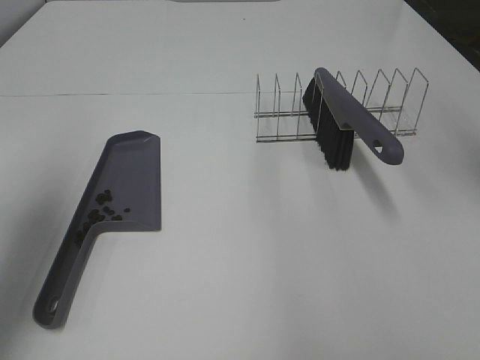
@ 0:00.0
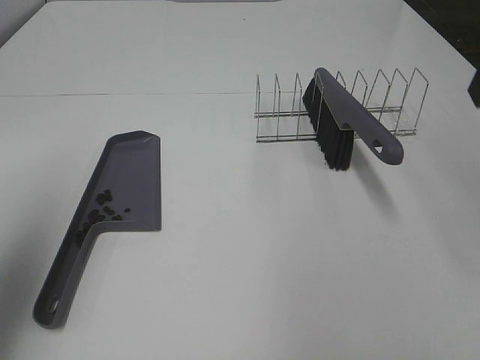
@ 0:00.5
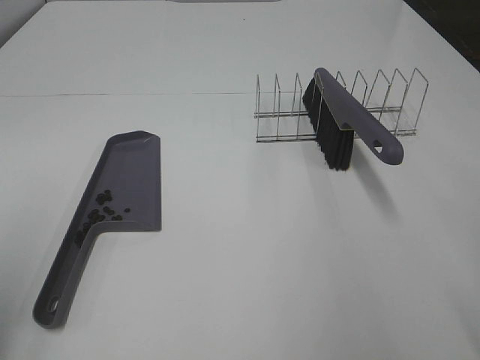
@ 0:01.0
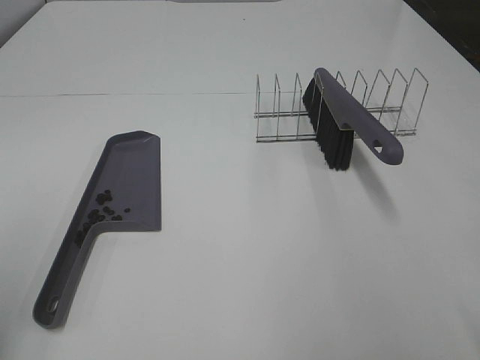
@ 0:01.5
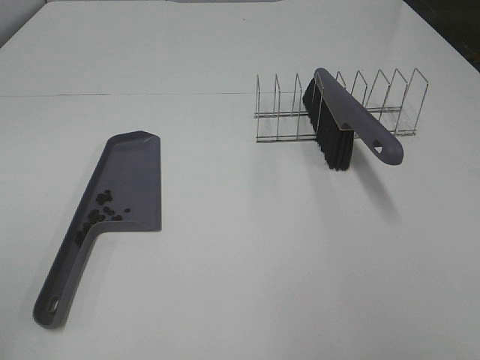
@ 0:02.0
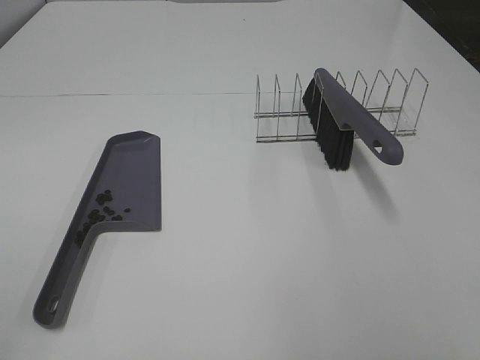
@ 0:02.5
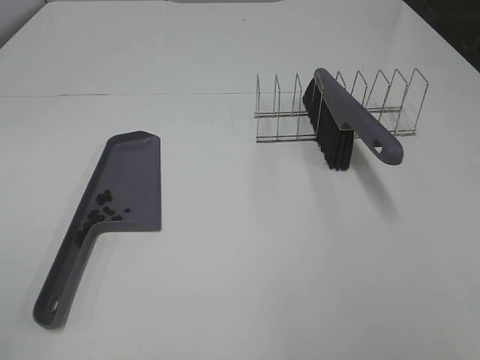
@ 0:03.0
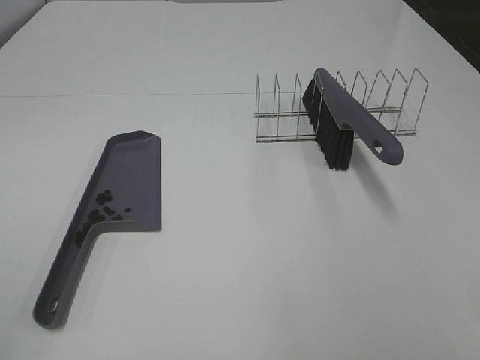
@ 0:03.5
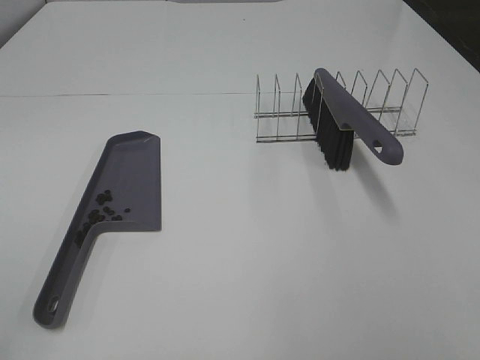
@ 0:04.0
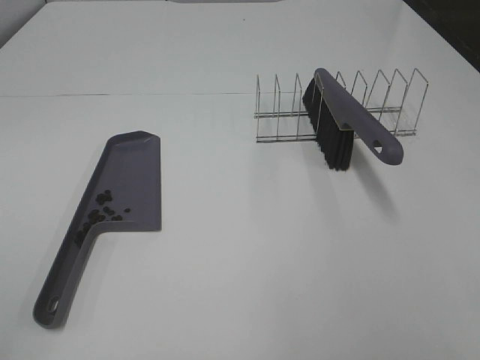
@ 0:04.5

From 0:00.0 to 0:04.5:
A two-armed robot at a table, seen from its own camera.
Task of the whole recording: Sweep Coffee Bean.
From 0:00.0 to 0:02.0: The left gripper heads backward, covering about 25 cm.
